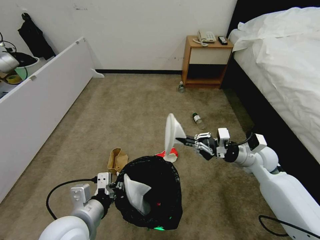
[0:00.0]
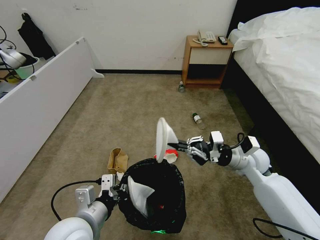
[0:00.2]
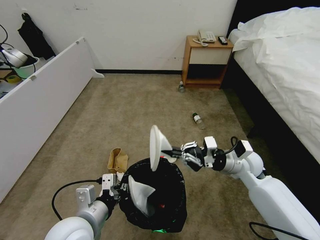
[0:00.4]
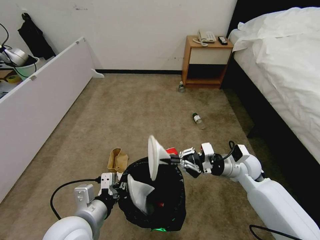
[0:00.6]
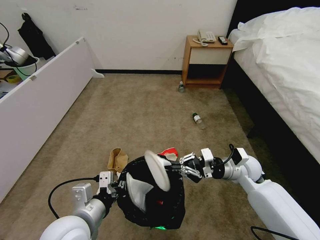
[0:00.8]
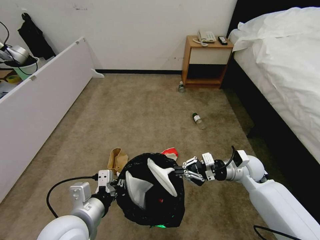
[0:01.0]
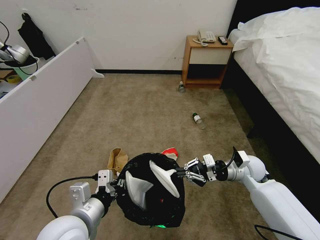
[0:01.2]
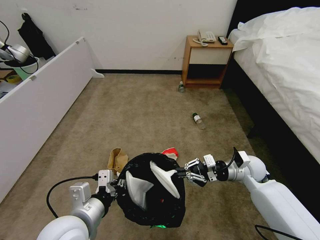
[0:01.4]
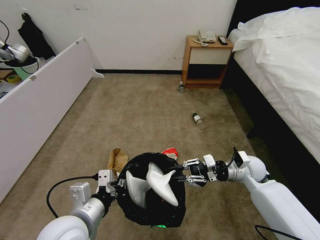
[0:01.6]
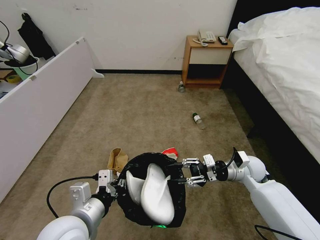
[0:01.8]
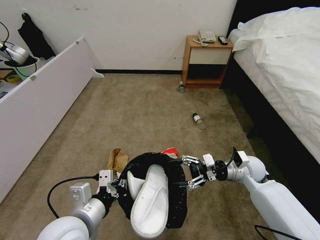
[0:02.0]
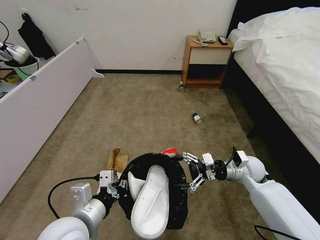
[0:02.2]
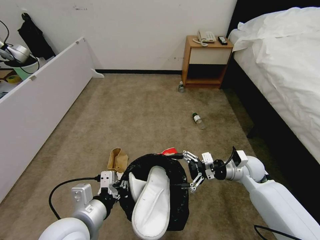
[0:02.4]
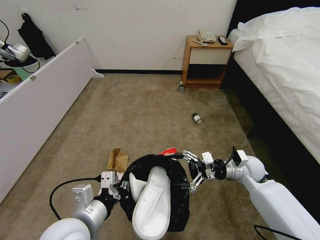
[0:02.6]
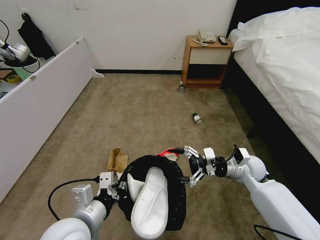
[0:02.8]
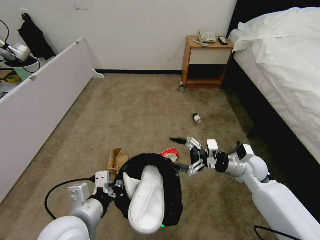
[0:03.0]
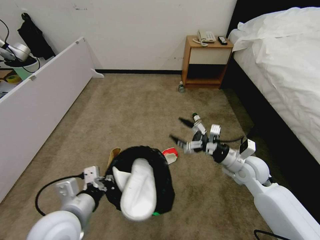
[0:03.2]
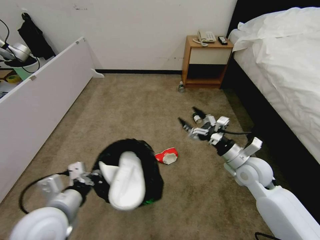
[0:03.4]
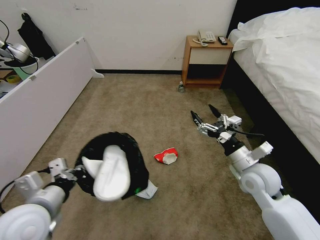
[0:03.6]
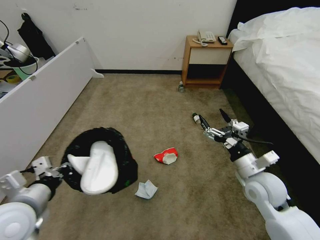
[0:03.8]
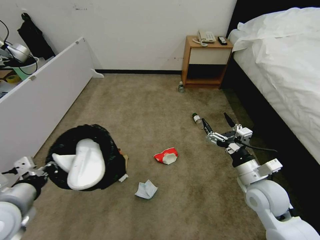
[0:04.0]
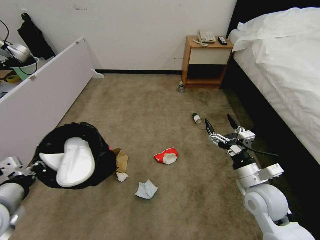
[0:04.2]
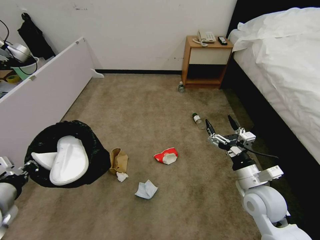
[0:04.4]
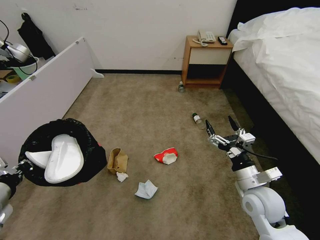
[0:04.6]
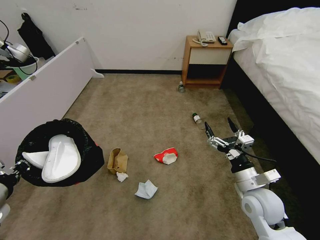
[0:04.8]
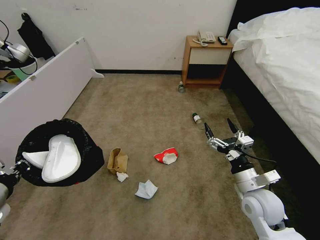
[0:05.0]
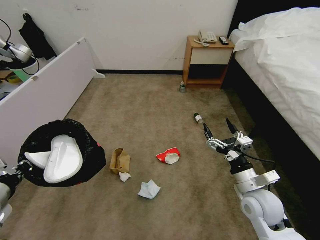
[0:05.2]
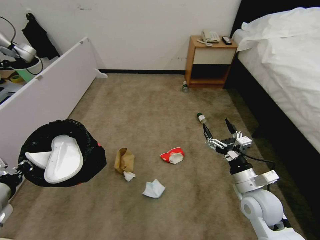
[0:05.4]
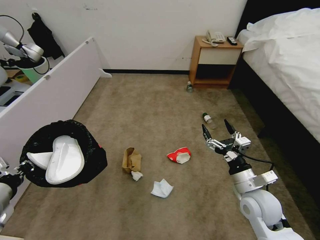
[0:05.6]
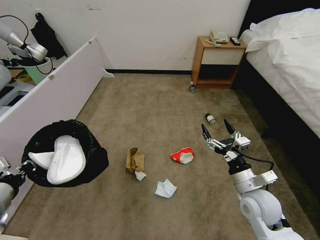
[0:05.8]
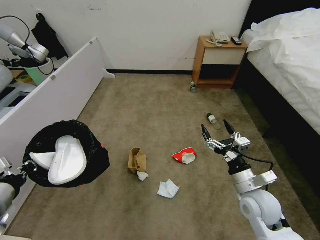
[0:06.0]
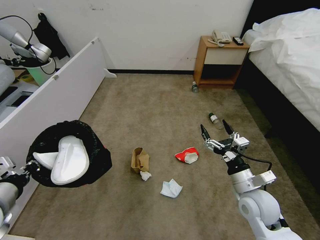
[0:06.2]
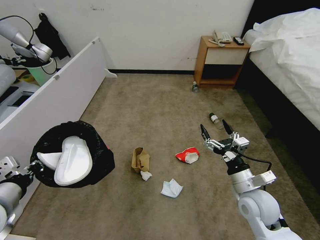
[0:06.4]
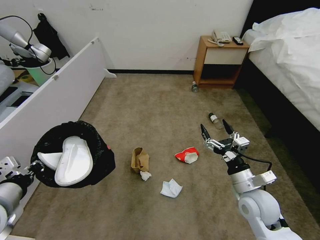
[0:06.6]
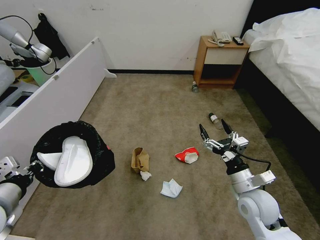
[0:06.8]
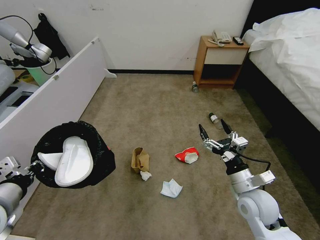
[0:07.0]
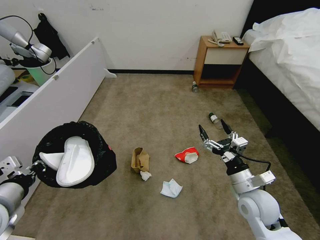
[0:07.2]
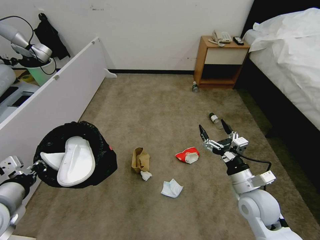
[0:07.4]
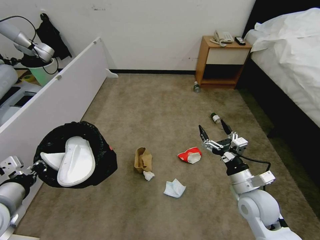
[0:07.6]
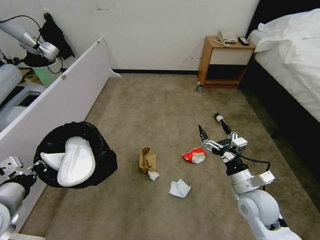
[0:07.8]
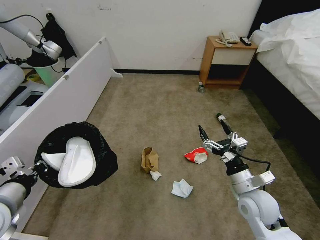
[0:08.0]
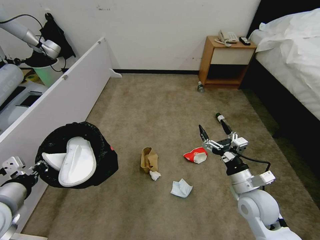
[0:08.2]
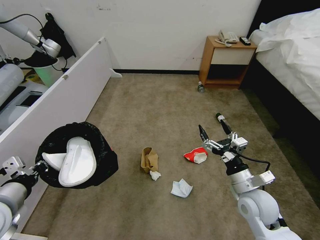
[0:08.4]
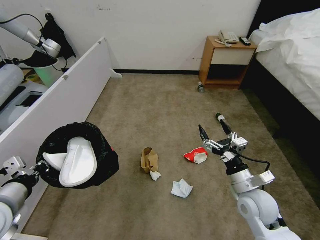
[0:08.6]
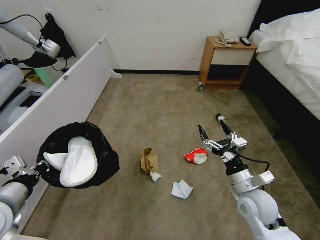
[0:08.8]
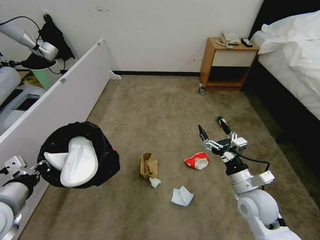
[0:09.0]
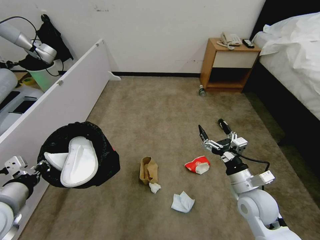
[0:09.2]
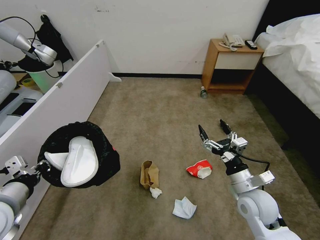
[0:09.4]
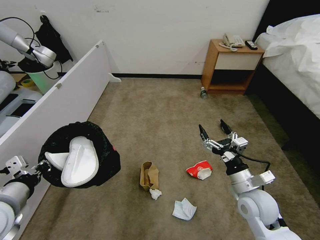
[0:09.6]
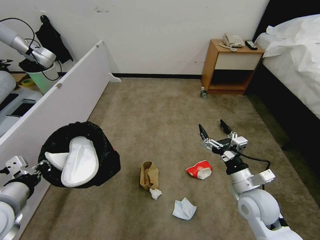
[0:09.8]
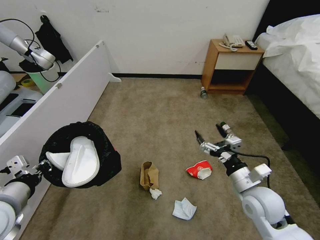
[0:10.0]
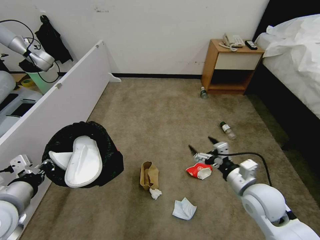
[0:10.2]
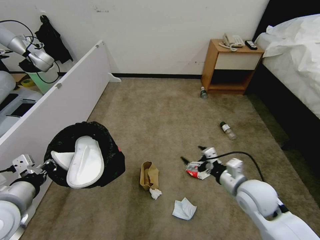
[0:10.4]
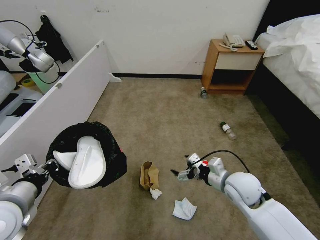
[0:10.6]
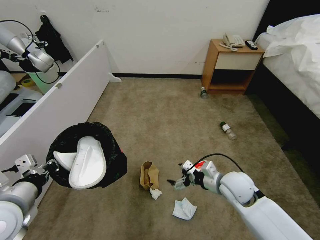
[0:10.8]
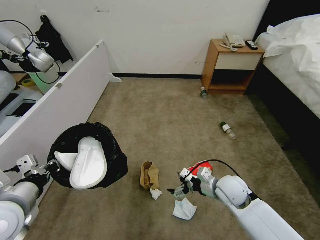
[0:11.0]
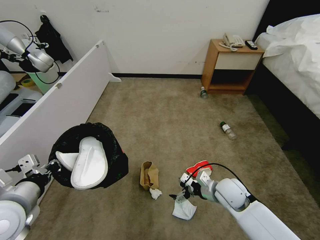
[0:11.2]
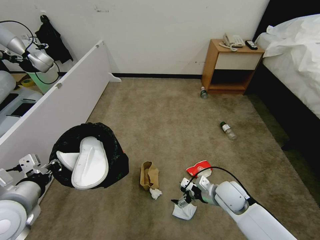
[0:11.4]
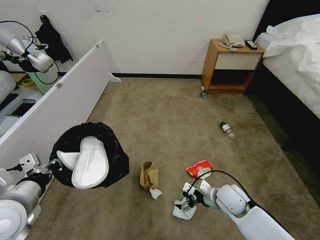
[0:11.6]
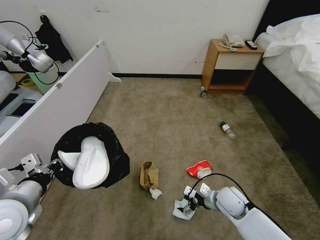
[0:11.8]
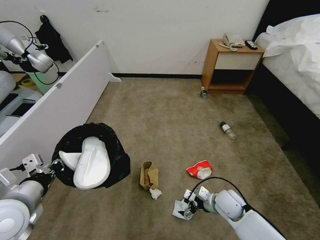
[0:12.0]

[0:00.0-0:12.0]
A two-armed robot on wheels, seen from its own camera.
Task of the whole recording: Pick up the trash bin, then pick up the garbage from the floor and place it into the trash bin.
0:00.0 to 0:01.6: The right gripper heads downward, covering approximately 5 cm.
0:01.6 to 0:03.0: The right gripper opens up.
0:03.0 to 0:04.4: The right gripper goes roughly 10 cm backward, while the left gripper is displaced to the left by roughly 20 cm.
0:06.0 to 0:07.6: The grippers stay close to where they were, moving slightly.
0:07.6 to 0:09.0: Both grippers stay put.
0:10.4 to 0:12.0: The right gripper shifts some 15 cm downward.

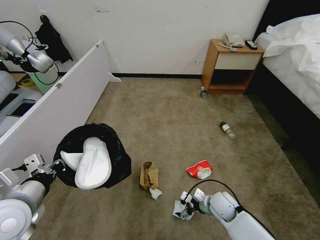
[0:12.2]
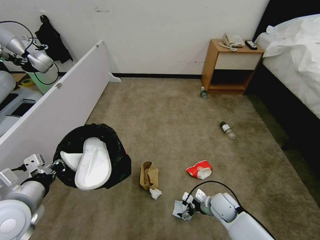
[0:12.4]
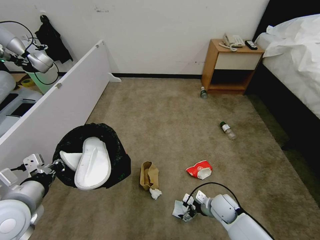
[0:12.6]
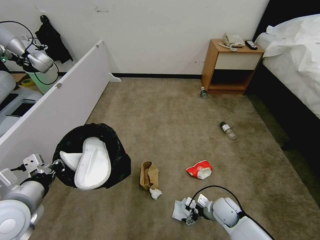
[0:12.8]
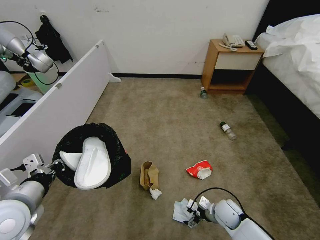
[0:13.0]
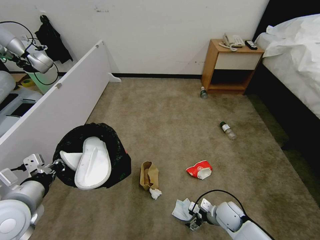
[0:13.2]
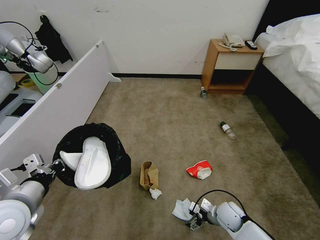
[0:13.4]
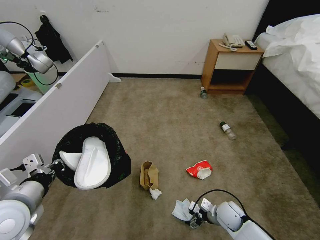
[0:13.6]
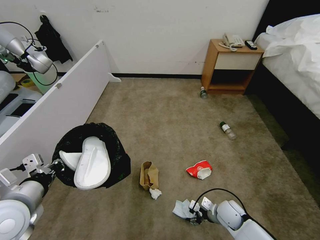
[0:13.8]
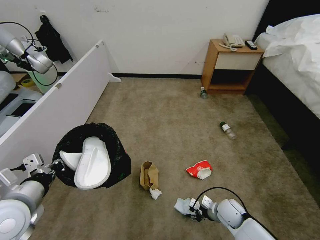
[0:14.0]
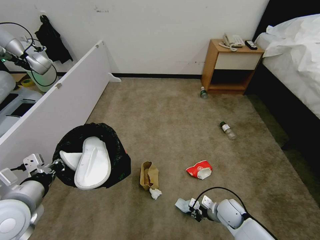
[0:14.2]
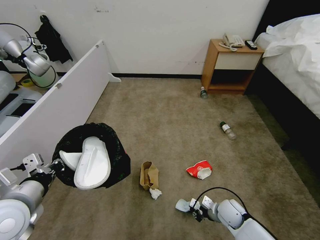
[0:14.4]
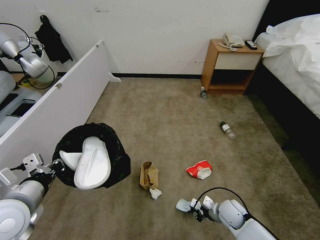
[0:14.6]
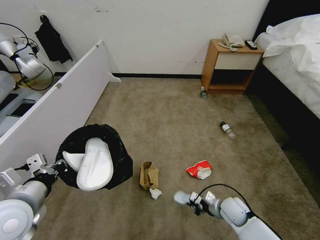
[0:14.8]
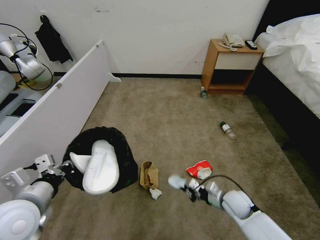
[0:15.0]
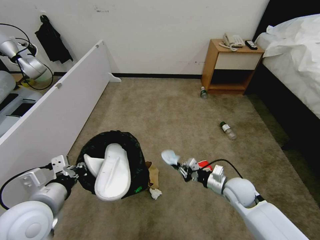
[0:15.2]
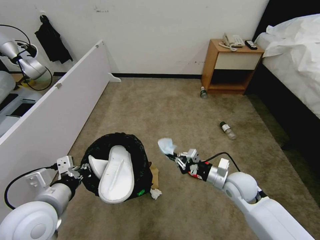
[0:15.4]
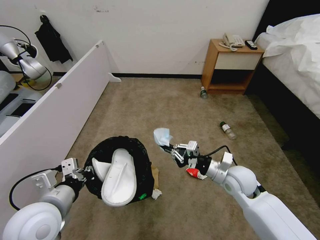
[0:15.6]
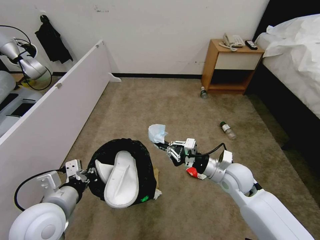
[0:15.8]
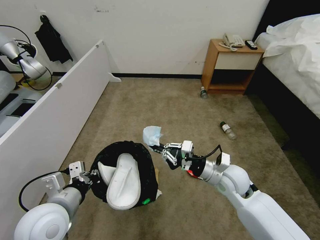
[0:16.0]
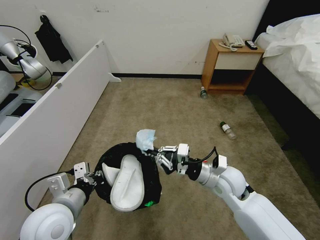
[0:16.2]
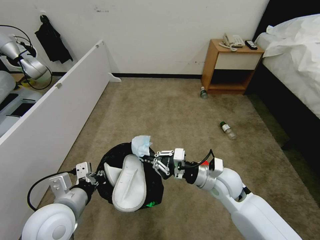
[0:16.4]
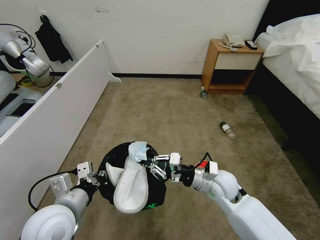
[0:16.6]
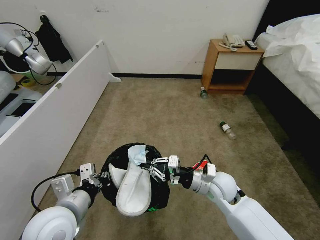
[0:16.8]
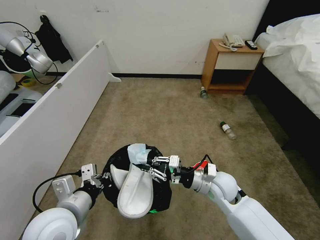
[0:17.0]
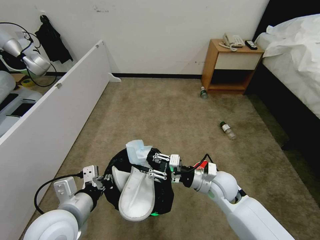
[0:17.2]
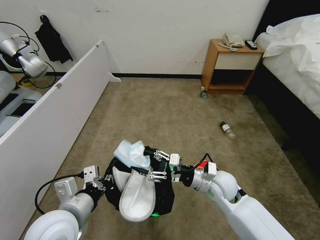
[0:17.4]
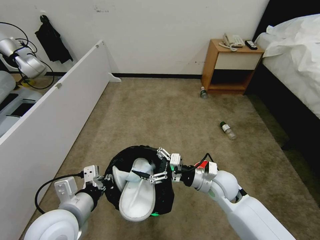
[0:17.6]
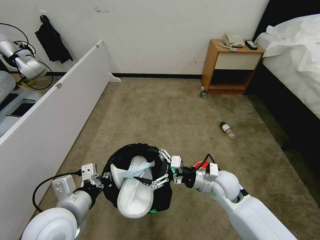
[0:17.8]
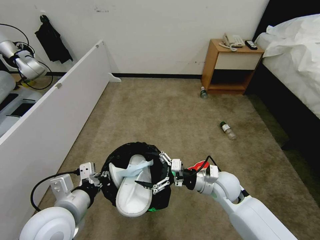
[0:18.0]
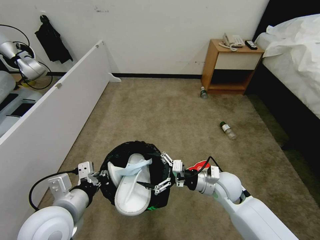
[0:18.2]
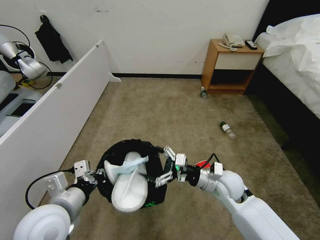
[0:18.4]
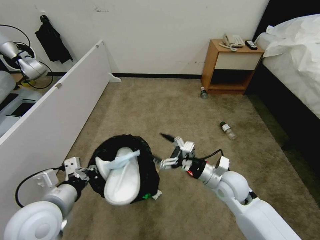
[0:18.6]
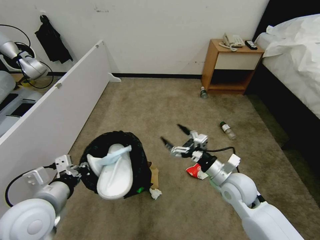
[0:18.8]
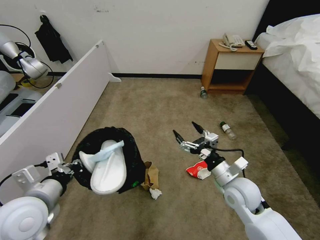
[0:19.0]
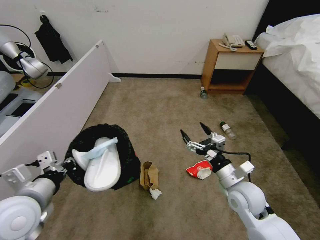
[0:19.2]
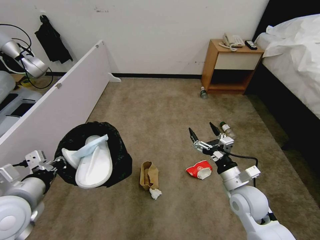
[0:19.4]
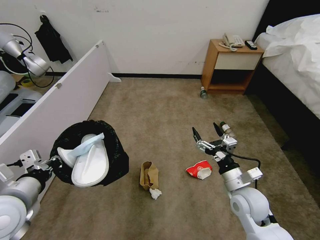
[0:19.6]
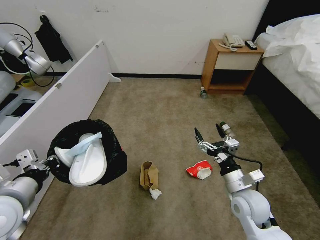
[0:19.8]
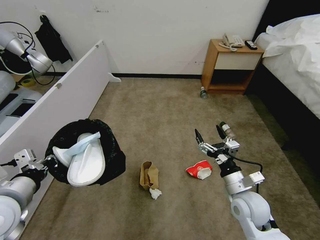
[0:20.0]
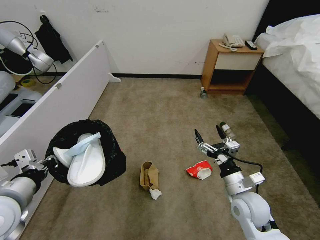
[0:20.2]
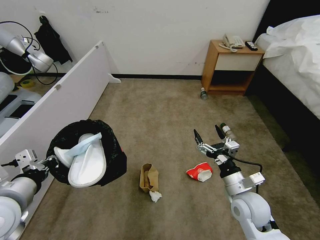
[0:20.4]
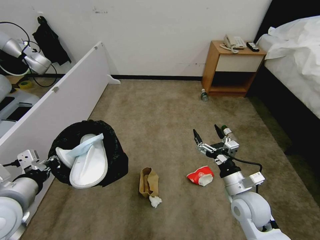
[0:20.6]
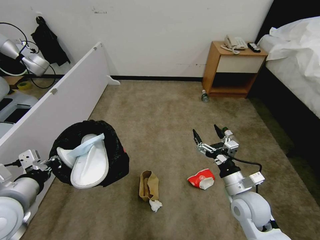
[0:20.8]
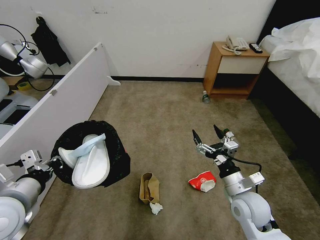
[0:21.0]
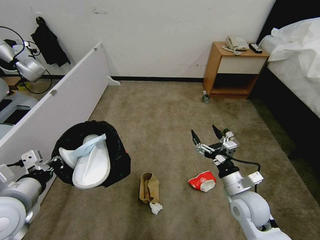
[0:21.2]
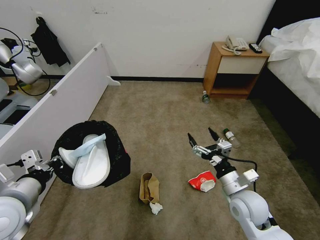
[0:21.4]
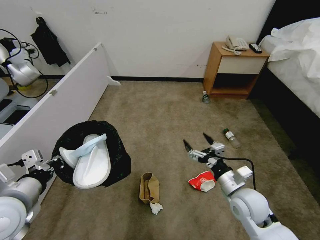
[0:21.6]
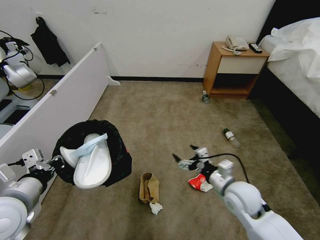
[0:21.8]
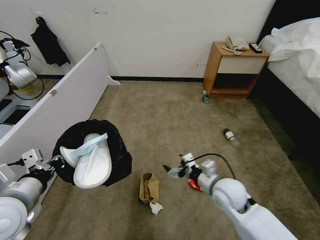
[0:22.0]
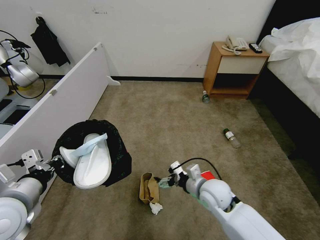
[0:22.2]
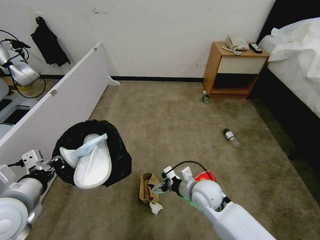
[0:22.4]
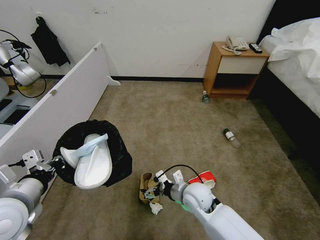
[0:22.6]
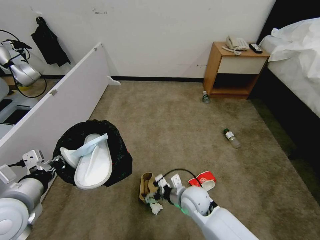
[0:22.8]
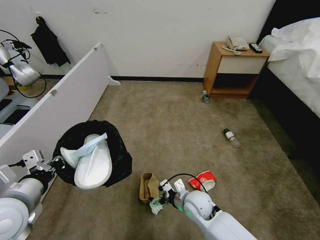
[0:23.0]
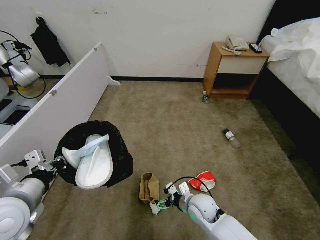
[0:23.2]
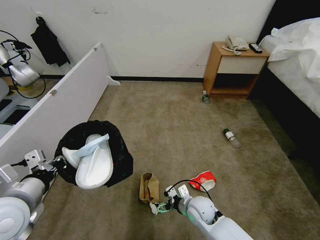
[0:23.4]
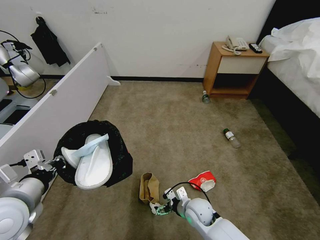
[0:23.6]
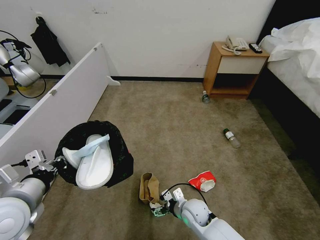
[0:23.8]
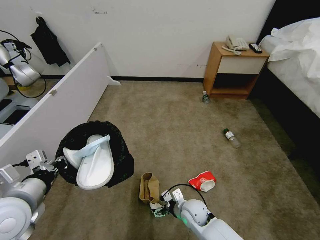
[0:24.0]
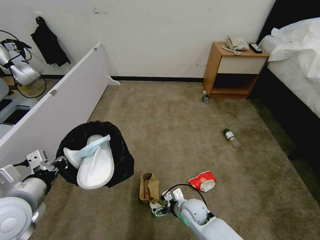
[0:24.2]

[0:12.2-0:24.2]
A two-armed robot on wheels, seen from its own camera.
Task of the whole recording: Pick up the trash bin, then pick up the garbage from the floor and place it into the trash bin.
0:12.2 to 0:13.8: The right gripper closes up.
0:13.8 to 0:15.2: The right gripper is displaced upward by approximately 10 cm, and closes its fingers.
0:15.2 to 0:16.6: The right gripper goes roughly 10 cm to the left and upward.
0:16.6 to 0:18.2: The right gripper opens.
0:18.2 to 0:19.8: The right gripper shifts roughly 10 cm backward and to the right; the left gripper goes about 10 cm to the left.
0:19.8 to 0:21.2: The two grippers keep their place.
0:21.2 to 0:22.6: The right gripper goes roughly 15 cm to the left.
0:22.6 to 0:24.2: The right gripper heads downward, covering about 10 cm.
